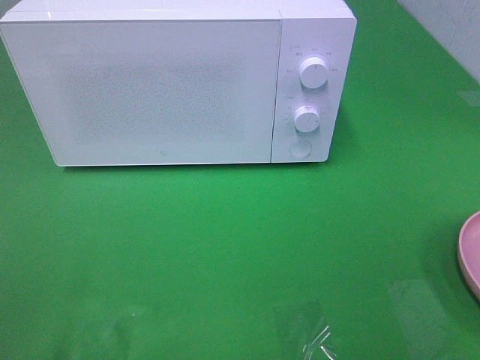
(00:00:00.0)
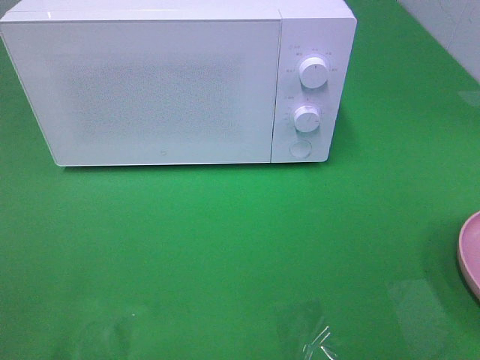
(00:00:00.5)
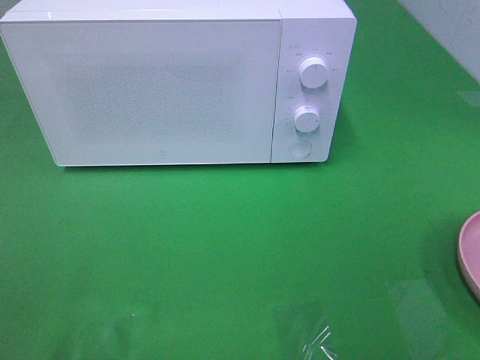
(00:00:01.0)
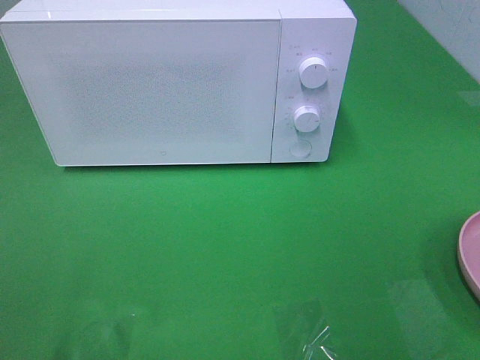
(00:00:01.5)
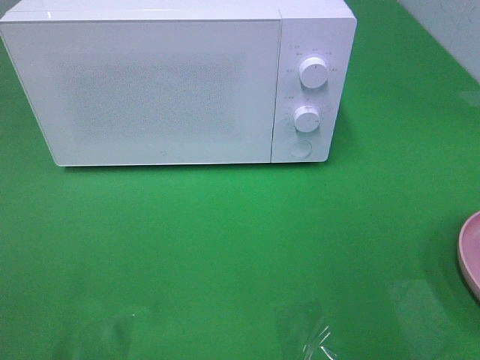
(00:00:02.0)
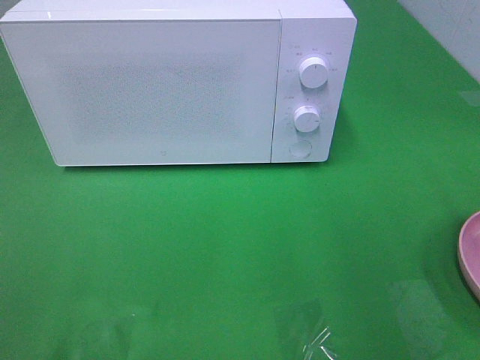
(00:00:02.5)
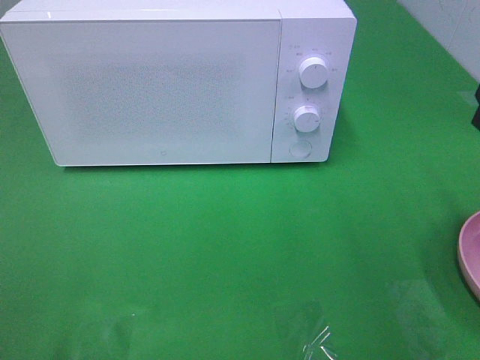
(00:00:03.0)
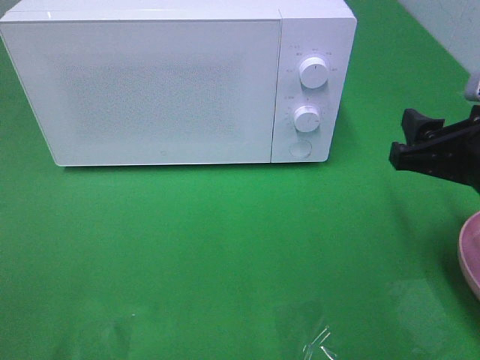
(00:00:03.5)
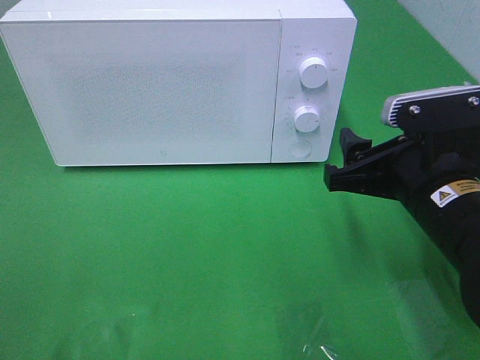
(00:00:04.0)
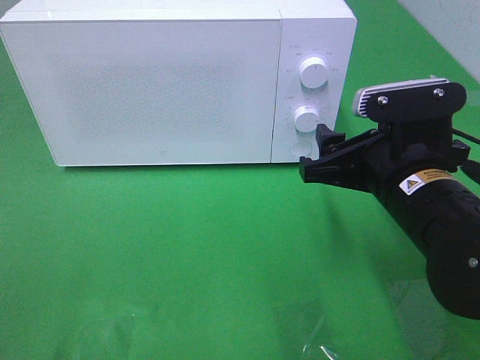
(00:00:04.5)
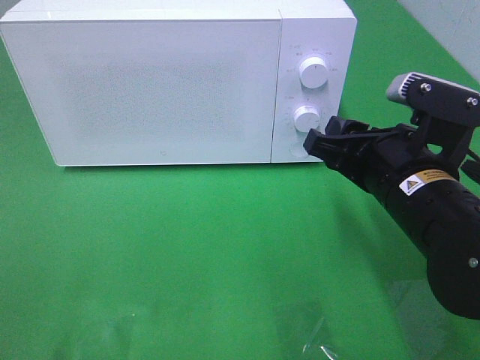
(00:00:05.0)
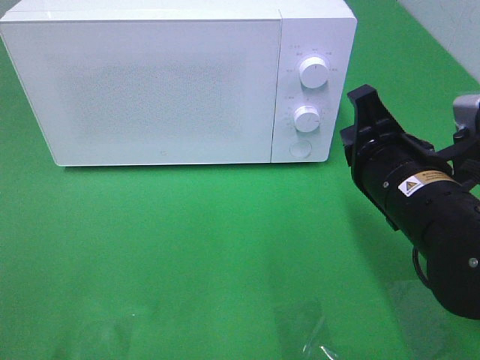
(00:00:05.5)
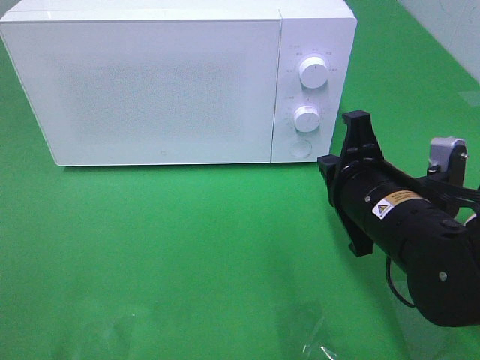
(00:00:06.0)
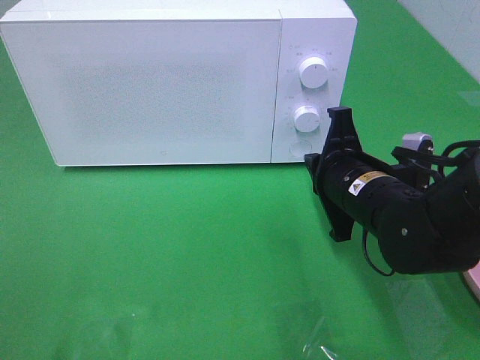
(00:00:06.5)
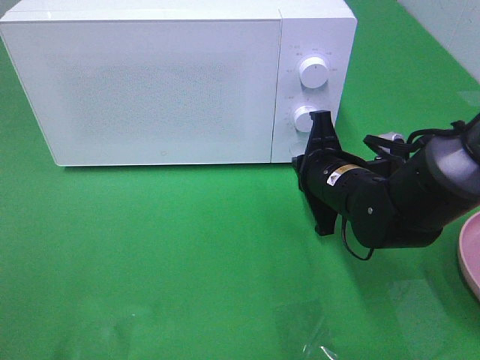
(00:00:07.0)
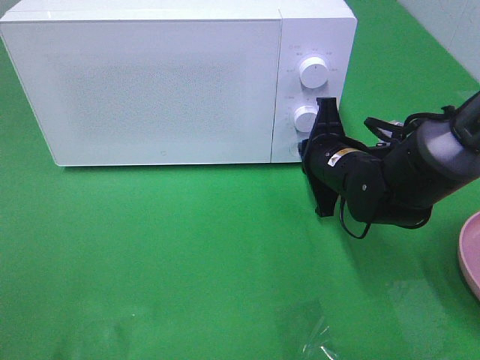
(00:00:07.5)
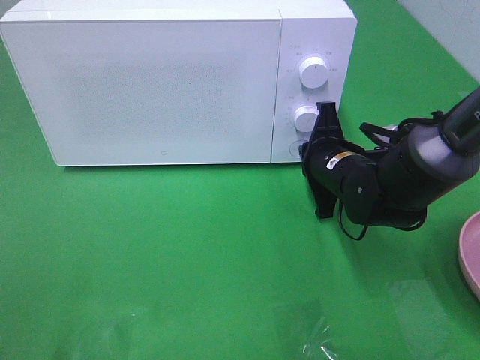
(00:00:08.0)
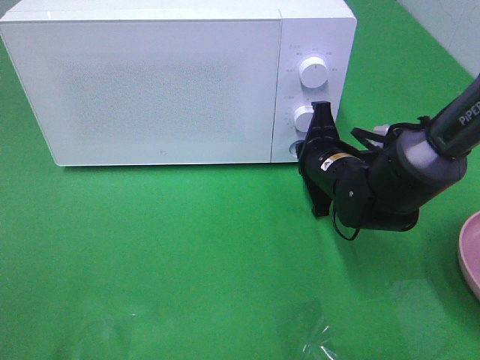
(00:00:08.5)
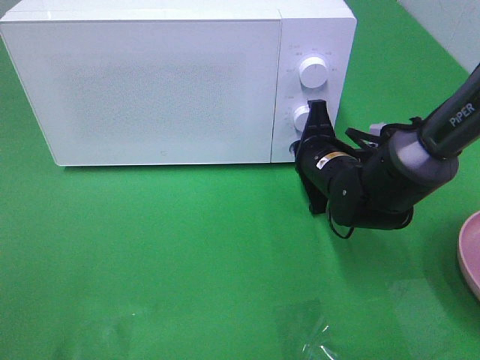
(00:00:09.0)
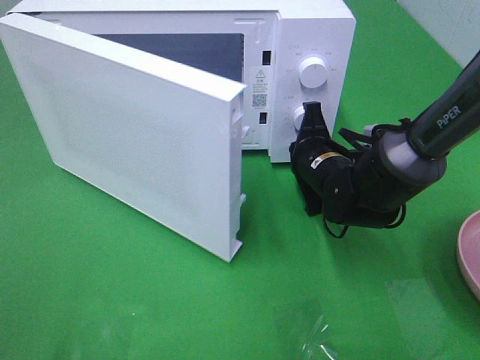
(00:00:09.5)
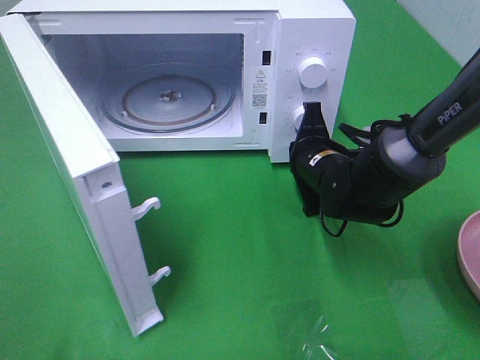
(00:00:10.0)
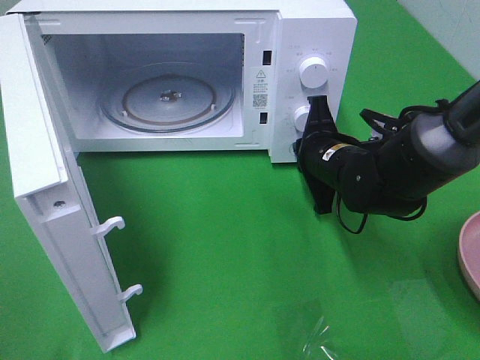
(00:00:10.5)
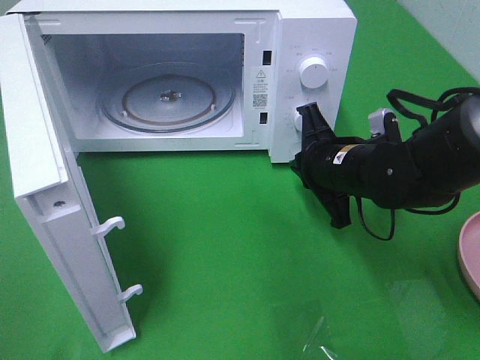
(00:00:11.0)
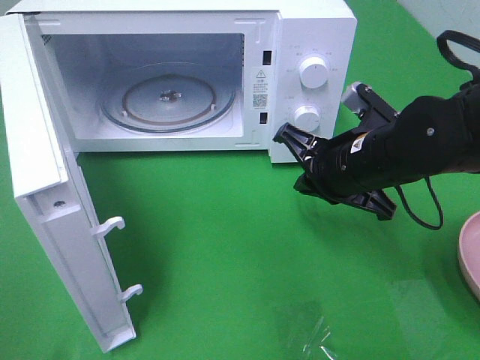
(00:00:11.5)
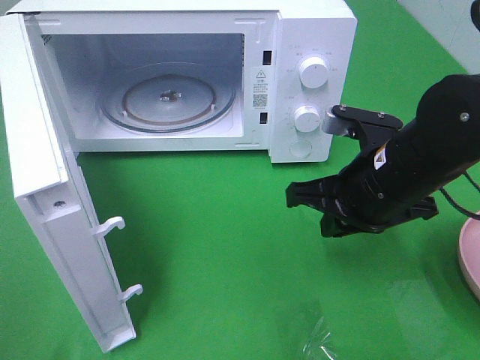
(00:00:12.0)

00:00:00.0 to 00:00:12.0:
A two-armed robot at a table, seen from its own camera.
Task of the whole recording: Heat the burger.
Step, 00:00:00.0 to 00:00:11.0: Right hand: press the switch.
00:00:02.0 to 00:00:04.0: The right gripper is displaced downward, to the left and forward by roughly 20 cm.
00:00:04.0 to 00:00:06.0: The right gripper changes place by approximately 5 cm, and closes up.
00:00:06.0 to 00:00:08.0: The right gripper goes about 10 cm forward and downward.
00:00:10.0 to 00:00:12.0: The right gripper travels backward and upward by some 15 cm.

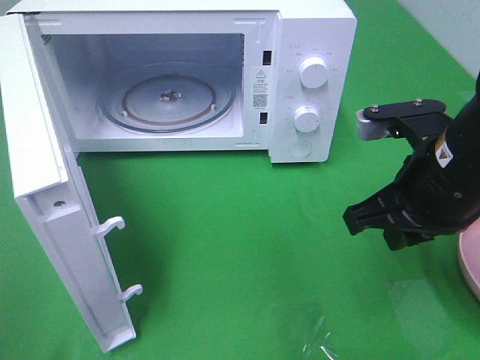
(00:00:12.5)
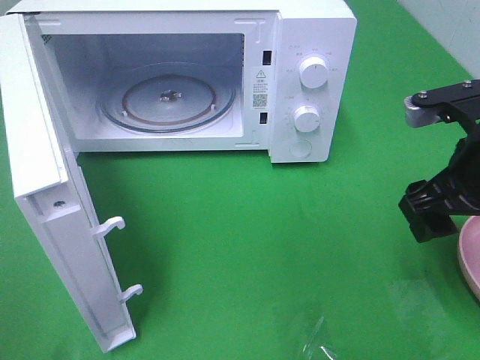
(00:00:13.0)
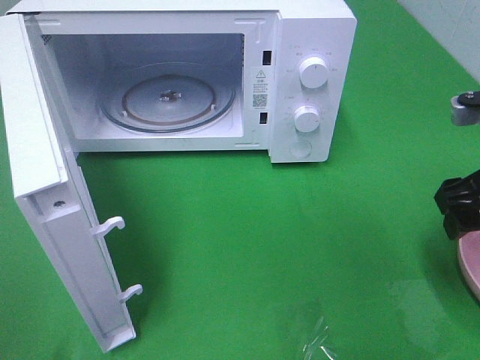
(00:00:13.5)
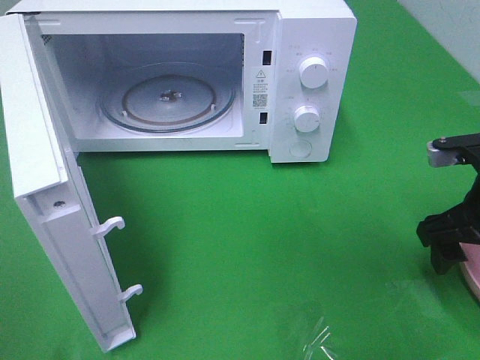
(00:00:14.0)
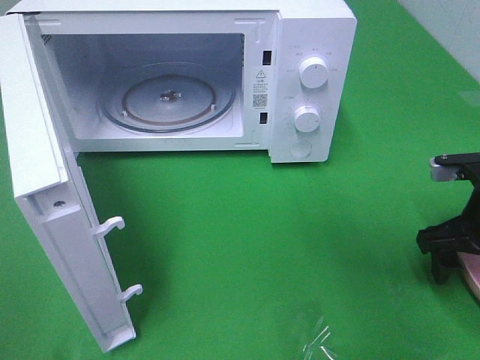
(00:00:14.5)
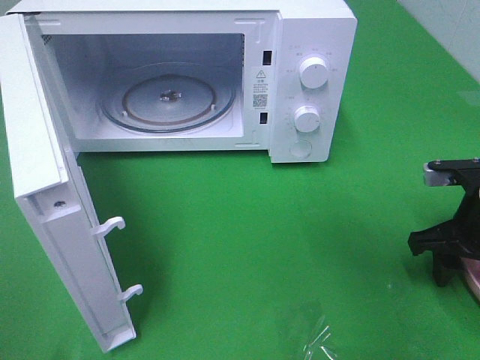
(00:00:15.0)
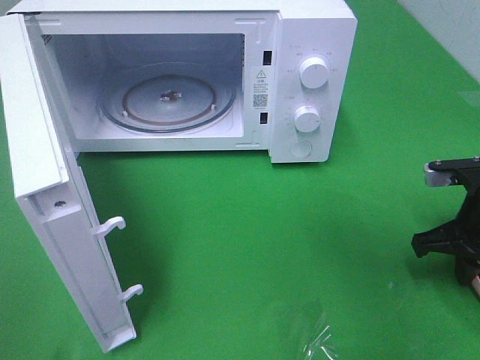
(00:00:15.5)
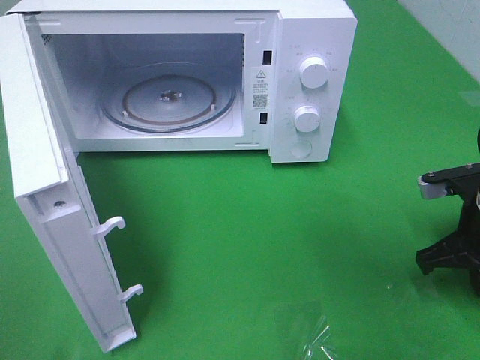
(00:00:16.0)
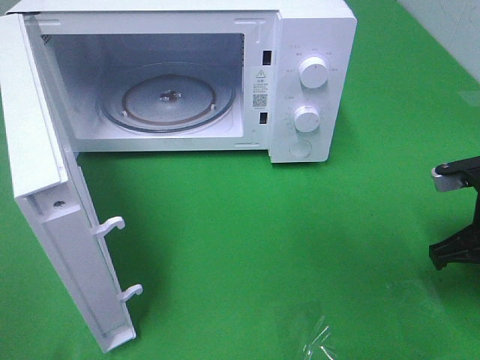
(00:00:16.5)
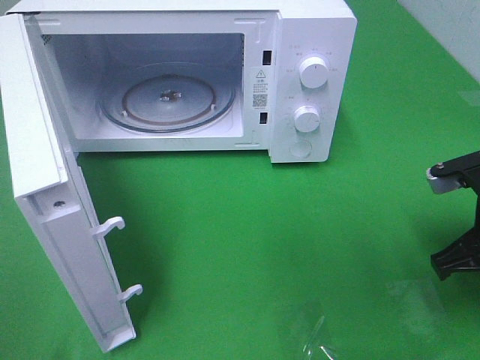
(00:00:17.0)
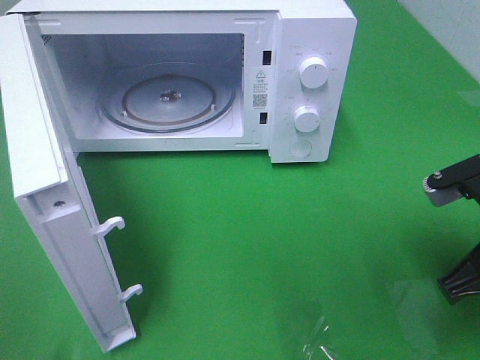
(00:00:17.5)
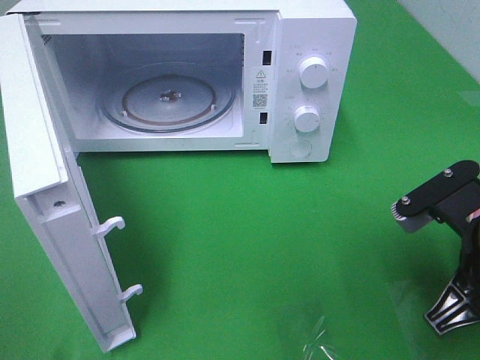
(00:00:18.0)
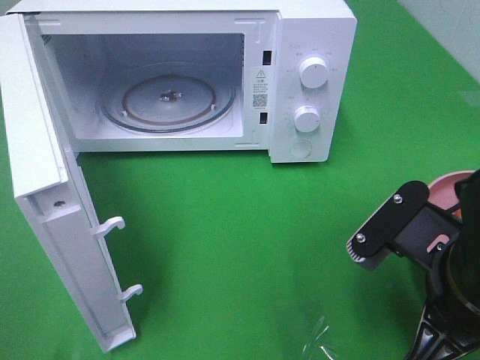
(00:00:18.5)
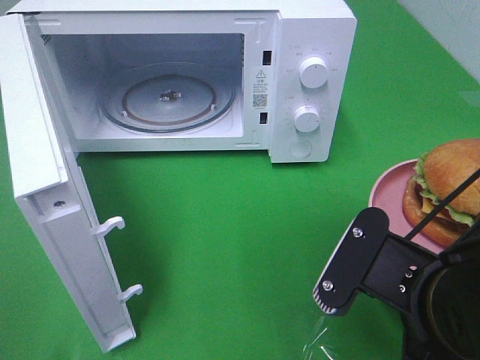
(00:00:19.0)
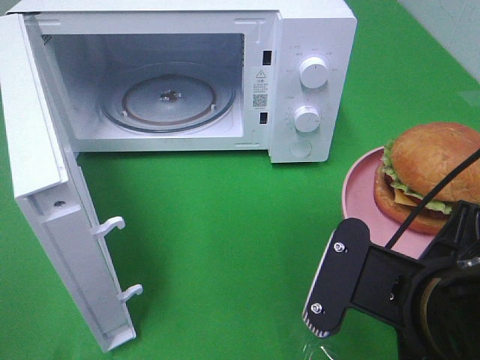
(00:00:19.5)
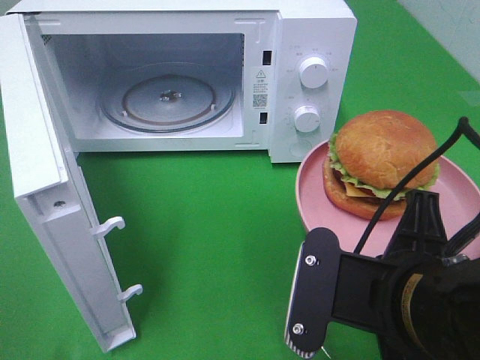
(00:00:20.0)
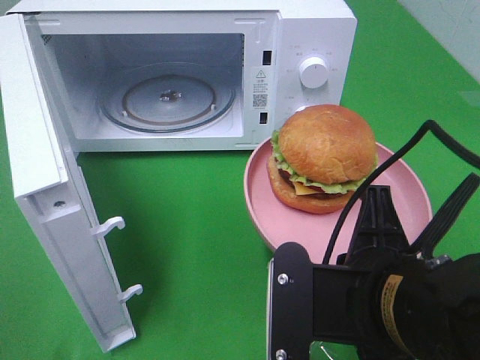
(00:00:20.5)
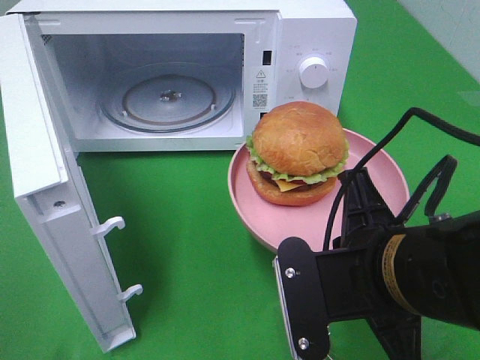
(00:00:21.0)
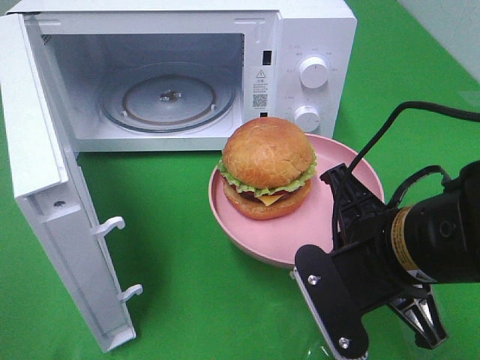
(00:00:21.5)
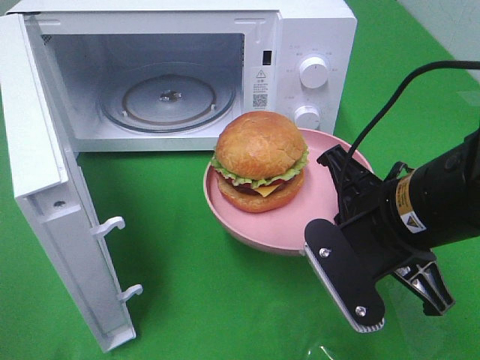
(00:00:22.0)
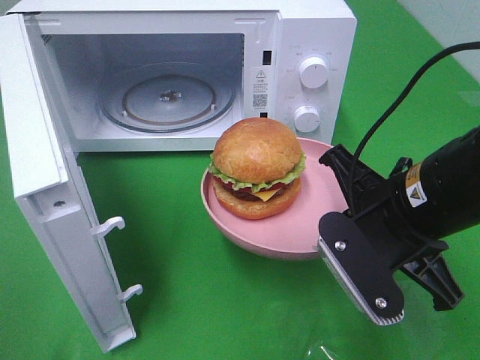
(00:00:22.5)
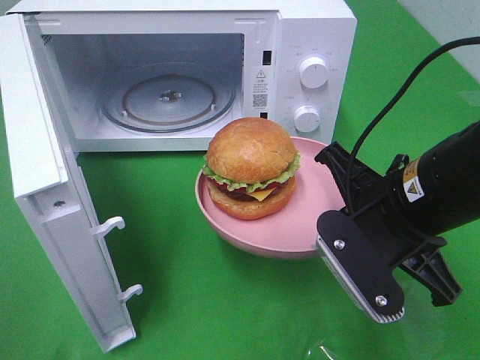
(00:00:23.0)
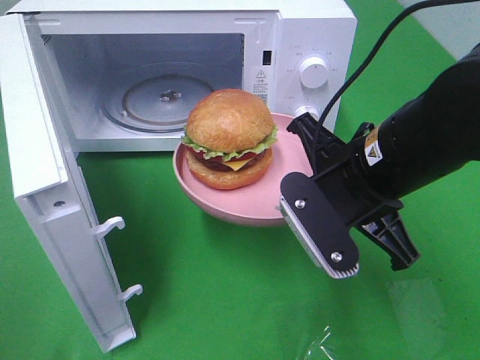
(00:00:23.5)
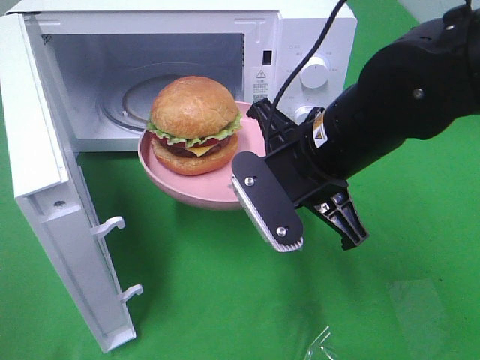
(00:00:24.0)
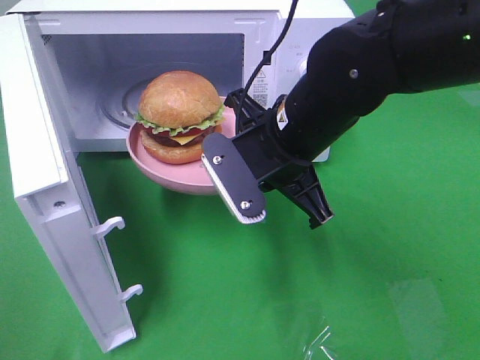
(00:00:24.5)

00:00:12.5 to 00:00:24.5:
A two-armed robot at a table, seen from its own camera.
Task of the whole recording: Heat the burger.
Step, 00:00:12.5 to 00:00:15.5: Right hand: grab the plate with the hamburger.
00:00:12.5 to 00:00:14.5: The right gripper goes approximately 15 cm to the right and downward, and opens up.
00:00:14.5 to 00:00:16.5: The right gripper closes its fingers.
00:00:16.5 to 00:00:18.5: The right gripper heads to the left and backward, covering roughly 15 cm.
00:00:18.5 to 00:00:20.5: The right gripper moves to the left, approximately 5 cm.
00:00:20.5 to 00:00:22.5: The right gripper moves forward, approximately 10 cm.
00:00:22.5 to 00:00:24.5: The right gripper travels to the left and forward by roughly 10 cm.

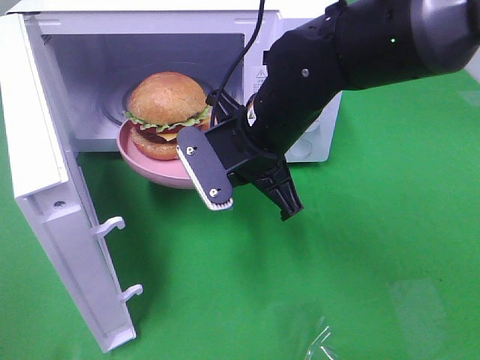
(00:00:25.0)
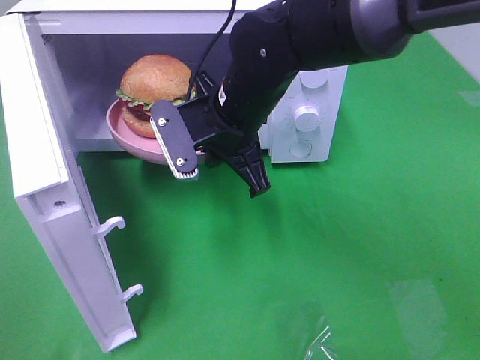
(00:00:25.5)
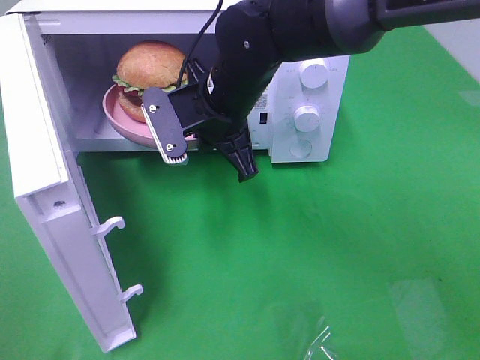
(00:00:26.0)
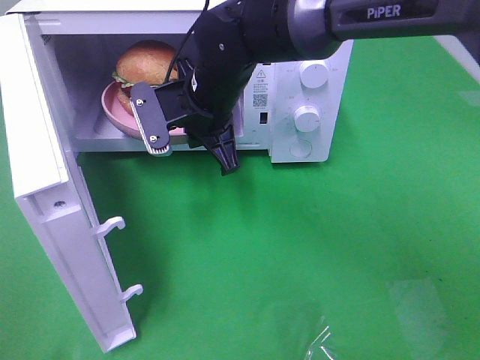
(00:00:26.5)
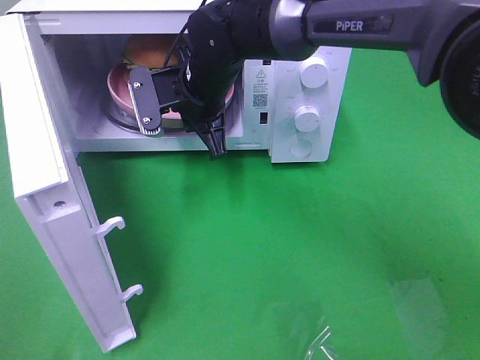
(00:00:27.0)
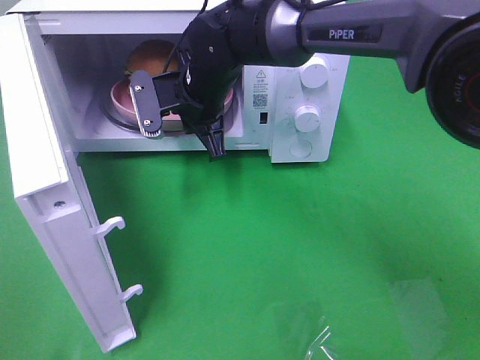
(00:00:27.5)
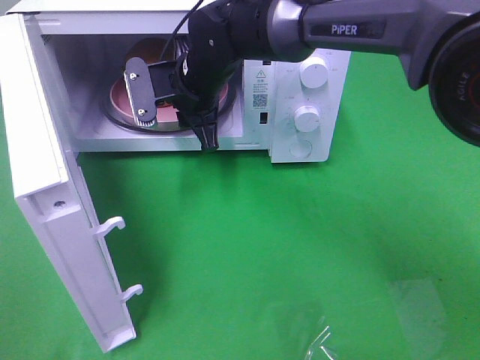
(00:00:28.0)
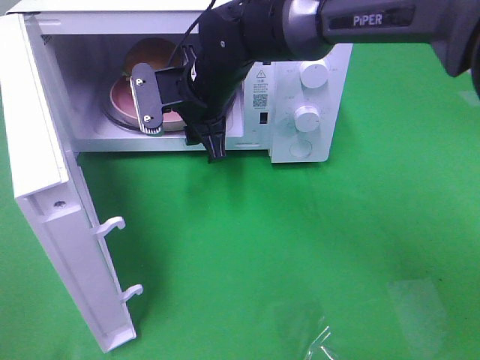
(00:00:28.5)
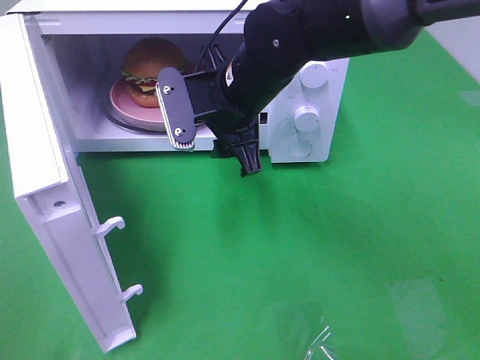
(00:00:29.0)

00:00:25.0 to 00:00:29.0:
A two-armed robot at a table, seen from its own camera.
Task of the whole recording: Heat the burger.
Step, 00:00:25.0 to 00:00:28.5: Right hand: place the plate in the microwave.
00:00:25.0 to 00:00:27.0: The right gripper heads forward and to the left, covering approximately 10 cm.
00:00:27.0 to 00:00:29.0: The right gripper is displaced backward by approximately 5 cm, and opens its fingers.
